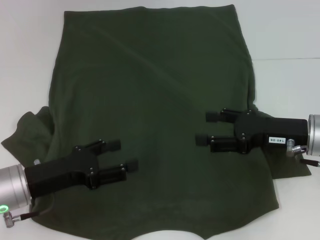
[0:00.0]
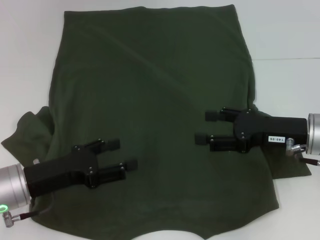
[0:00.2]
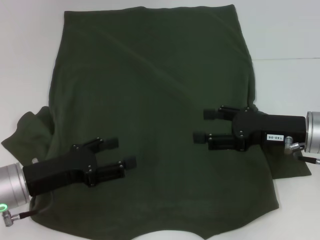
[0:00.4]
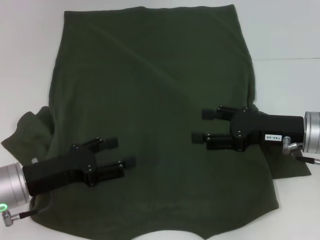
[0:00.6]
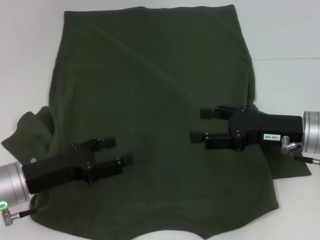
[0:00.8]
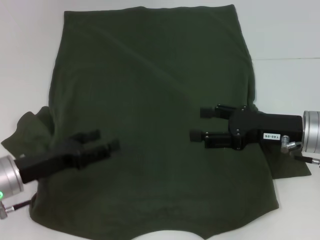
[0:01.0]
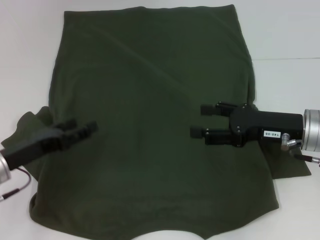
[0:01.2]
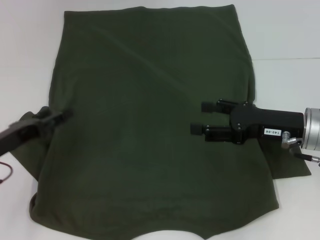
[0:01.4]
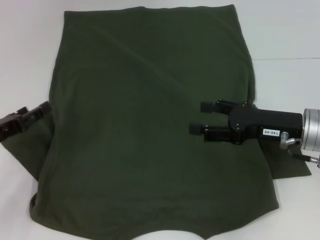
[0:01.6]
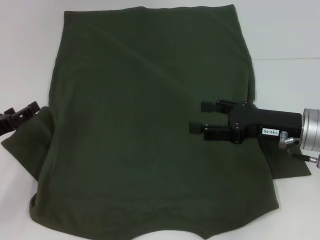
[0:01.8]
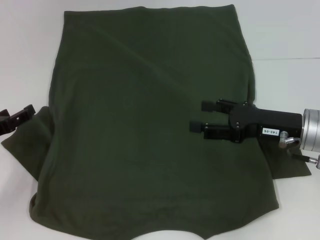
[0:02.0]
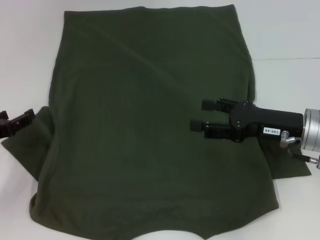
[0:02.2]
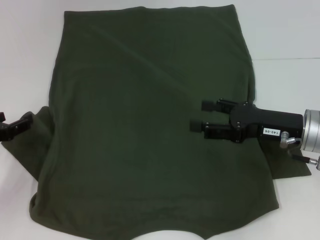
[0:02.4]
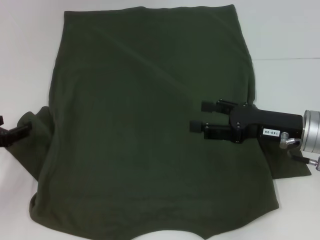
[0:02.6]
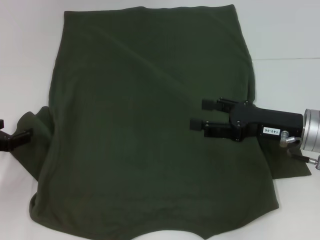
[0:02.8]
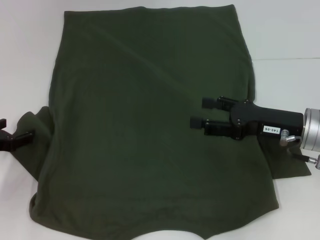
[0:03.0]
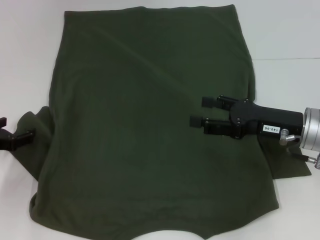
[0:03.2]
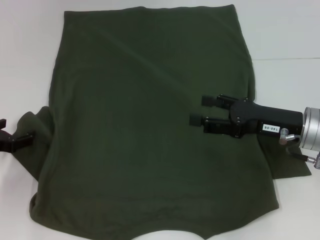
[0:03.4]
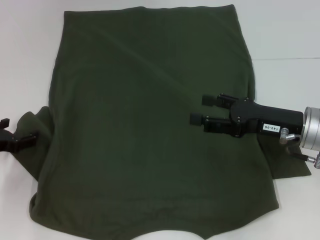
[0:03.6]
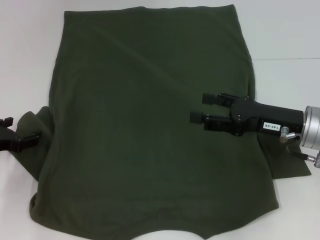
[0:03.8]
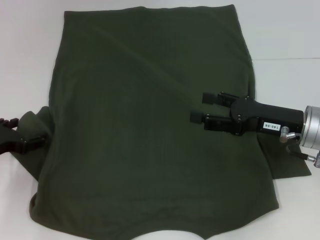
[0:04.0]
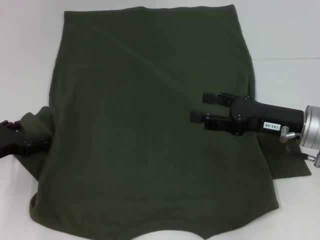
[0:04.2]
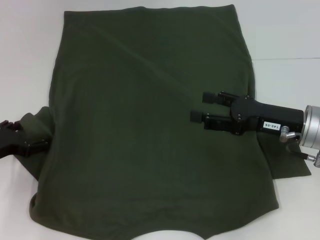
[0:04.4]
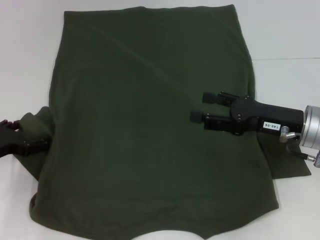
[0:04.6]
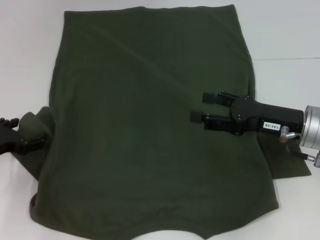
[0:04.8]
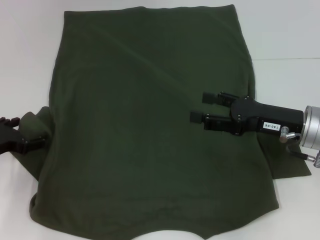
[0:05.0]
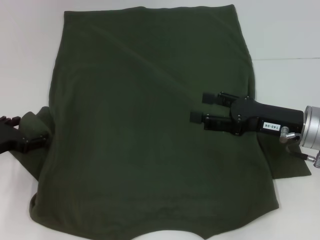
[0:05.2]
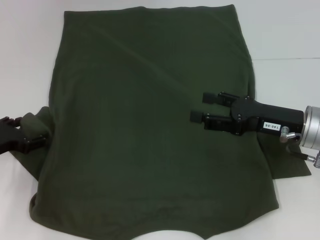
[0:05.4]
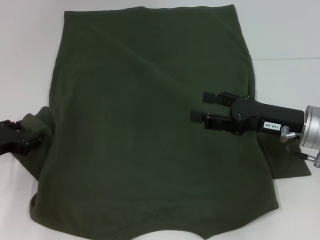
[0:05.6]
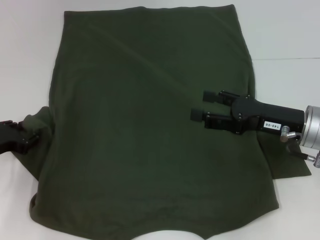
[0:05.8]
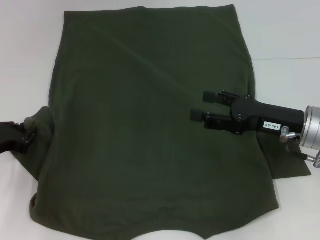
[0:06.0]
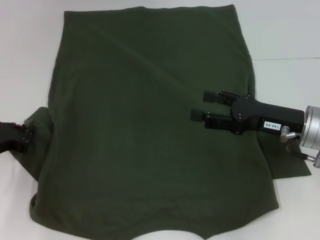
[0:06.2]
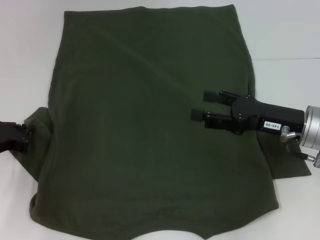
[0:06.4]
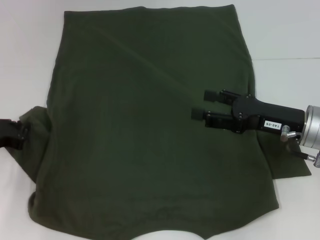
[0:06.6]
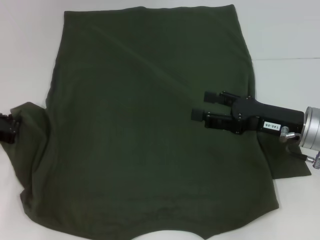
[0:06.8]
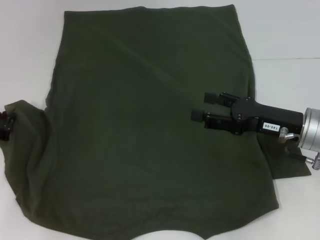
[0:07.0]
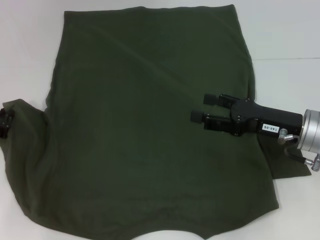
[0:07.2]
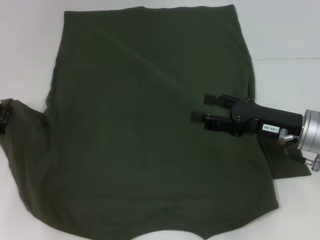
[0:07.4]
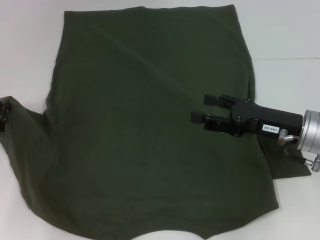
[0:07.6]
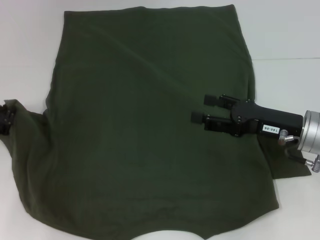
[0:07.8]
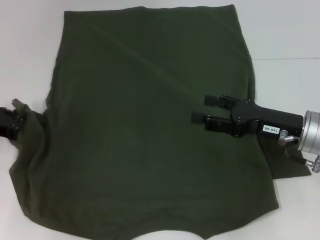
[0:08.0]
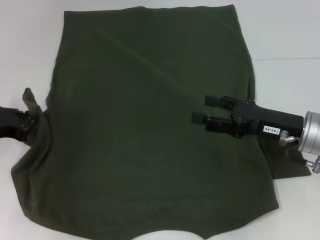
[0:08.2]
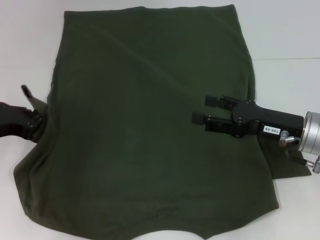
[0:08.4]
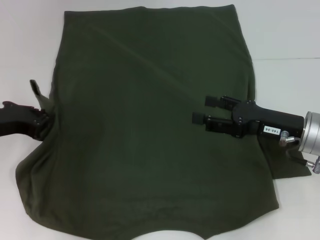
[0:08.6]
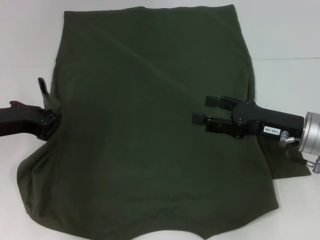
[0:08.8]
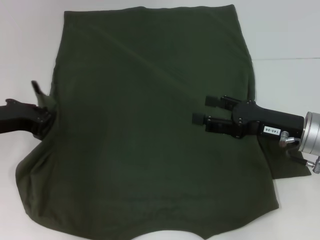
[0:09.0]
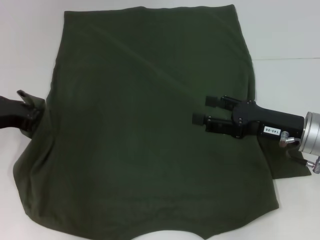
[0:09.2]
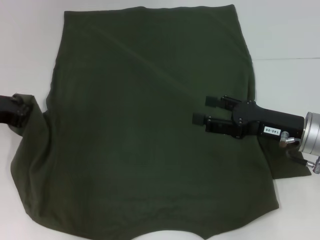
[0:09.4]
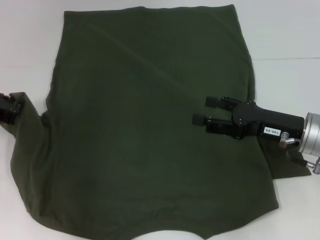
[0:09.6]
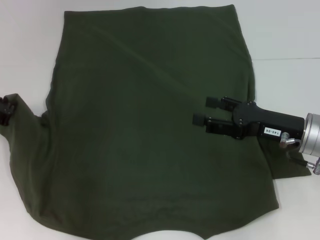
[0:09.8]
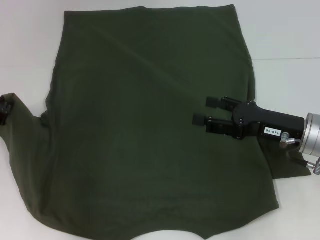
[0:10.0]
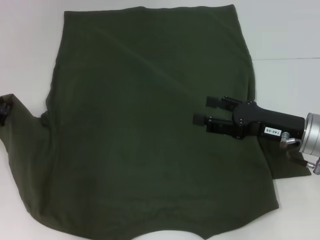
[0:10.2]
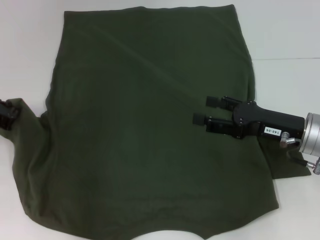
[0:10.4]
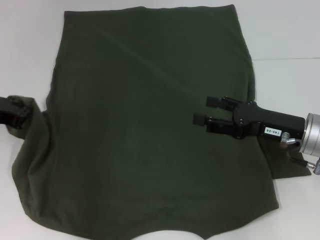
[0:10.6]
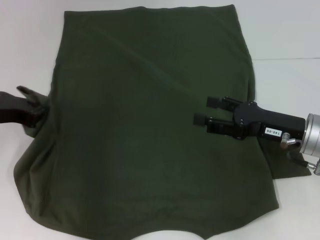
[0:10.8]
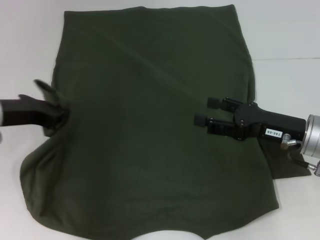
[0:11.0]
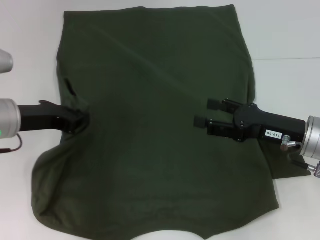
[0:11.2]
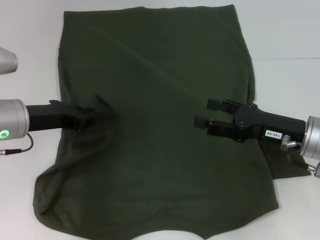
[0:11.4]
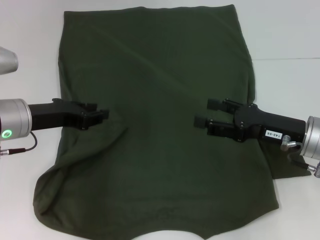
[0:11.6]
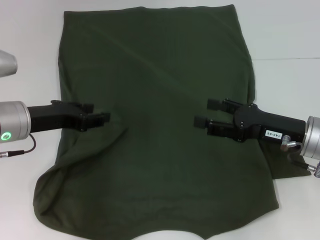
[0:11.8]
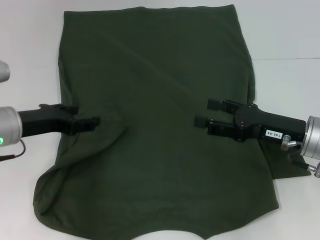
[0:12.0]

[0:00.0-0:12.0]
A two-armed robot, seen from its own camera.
Step, 0:00.0 to 0:12.0: Fold the bottom left sleeve with your left hand.
0:00.0 to 0:01.6: The left gripper travels to the left by roughly 10 cm.
0:03.0 to 0:04.4: The grippers make only small movements.
0:06.0 to 0:07.6: The left gripper closes its fingers.
0:07.6 to 0:09.0: The left gripper changes place by roughly 5 cm.
0:09.0 to 0:10.4: The grippers move only a little.
0:10.4 to 0:12.0: The left gripper heads to the right, covering roughly 5 cm, and opens.

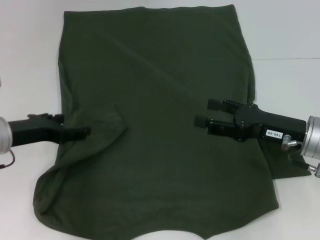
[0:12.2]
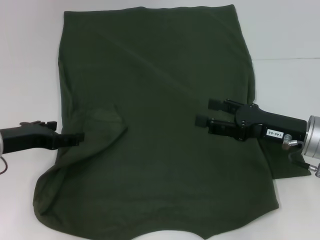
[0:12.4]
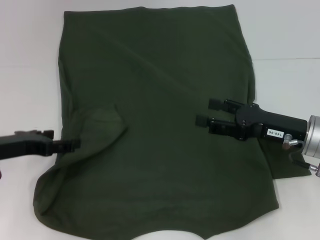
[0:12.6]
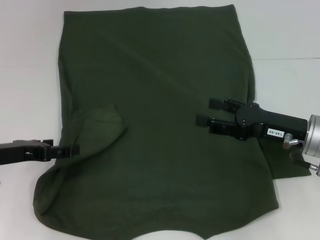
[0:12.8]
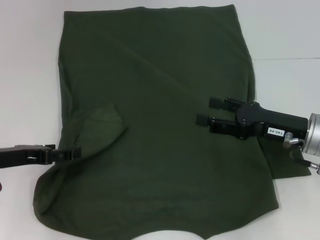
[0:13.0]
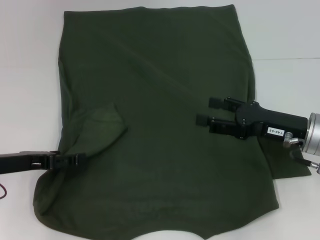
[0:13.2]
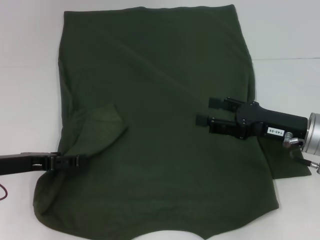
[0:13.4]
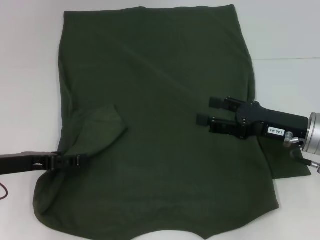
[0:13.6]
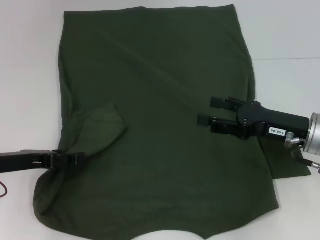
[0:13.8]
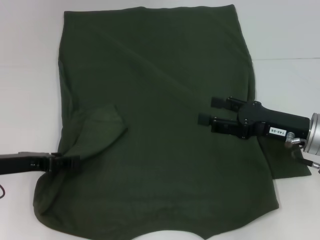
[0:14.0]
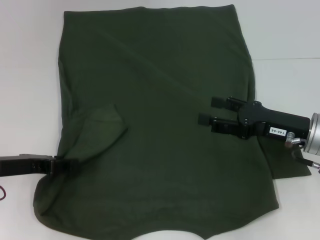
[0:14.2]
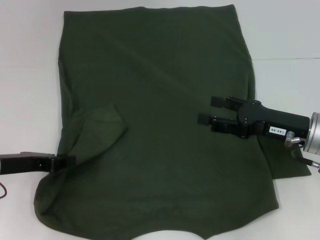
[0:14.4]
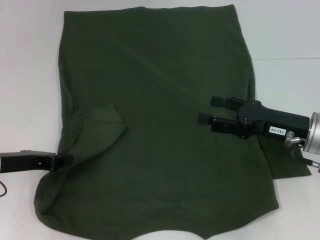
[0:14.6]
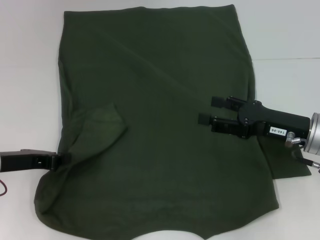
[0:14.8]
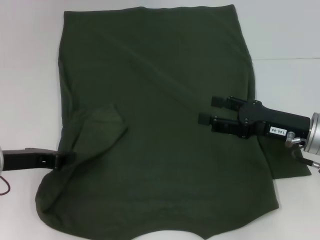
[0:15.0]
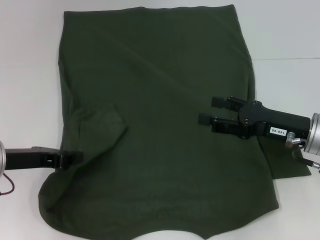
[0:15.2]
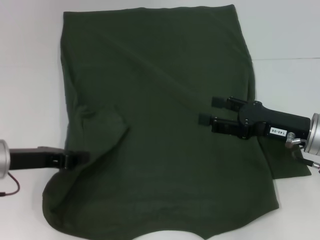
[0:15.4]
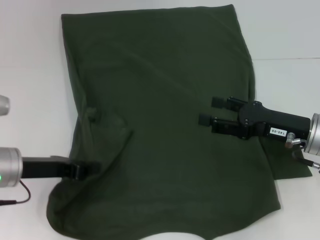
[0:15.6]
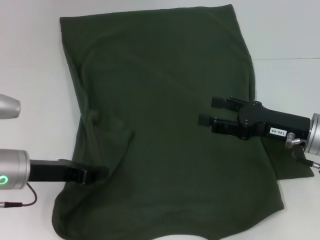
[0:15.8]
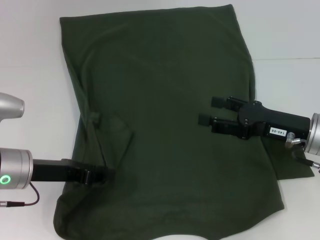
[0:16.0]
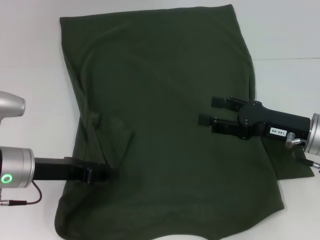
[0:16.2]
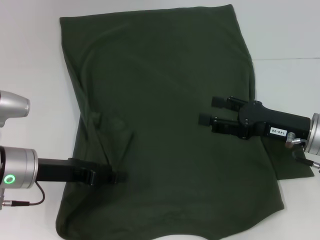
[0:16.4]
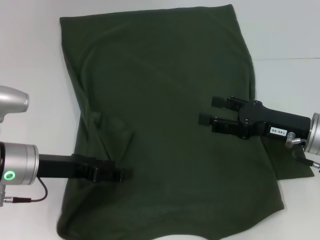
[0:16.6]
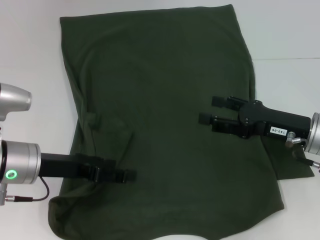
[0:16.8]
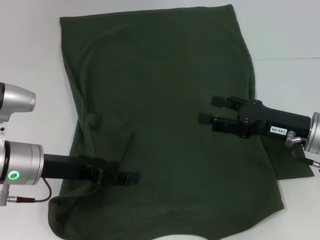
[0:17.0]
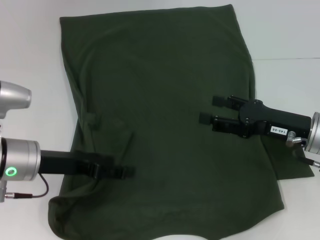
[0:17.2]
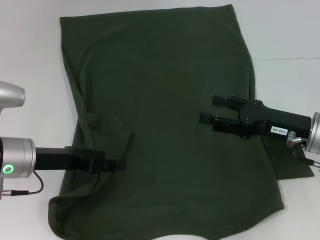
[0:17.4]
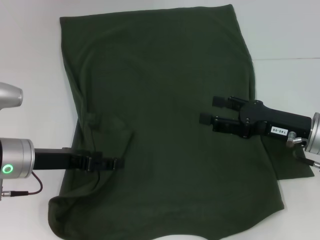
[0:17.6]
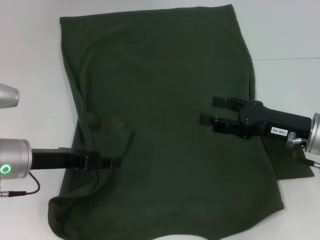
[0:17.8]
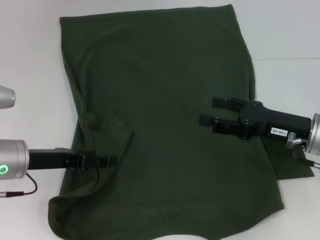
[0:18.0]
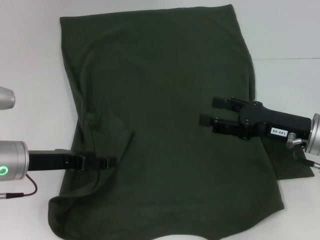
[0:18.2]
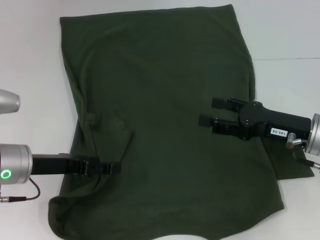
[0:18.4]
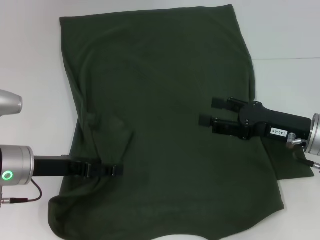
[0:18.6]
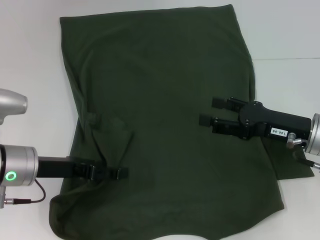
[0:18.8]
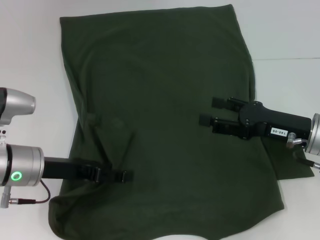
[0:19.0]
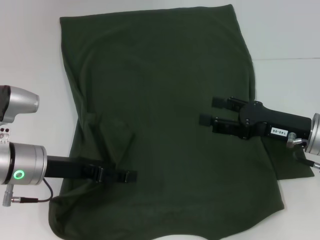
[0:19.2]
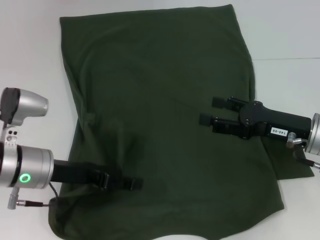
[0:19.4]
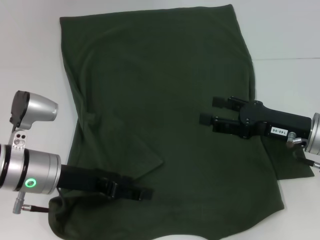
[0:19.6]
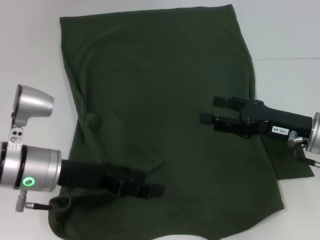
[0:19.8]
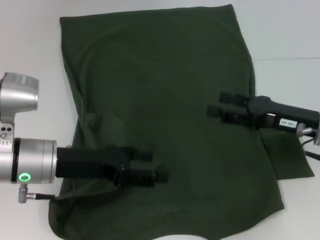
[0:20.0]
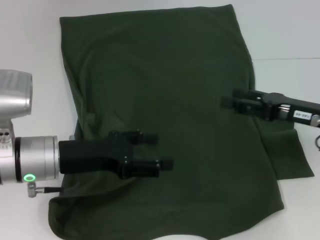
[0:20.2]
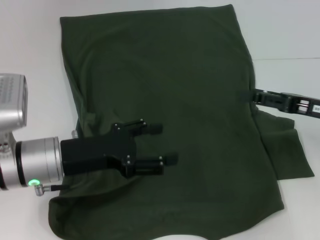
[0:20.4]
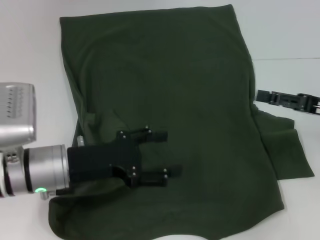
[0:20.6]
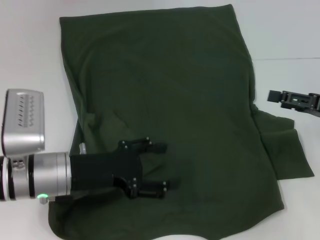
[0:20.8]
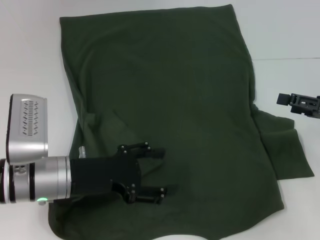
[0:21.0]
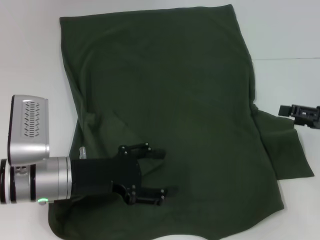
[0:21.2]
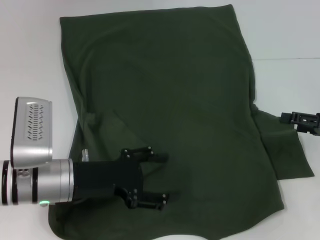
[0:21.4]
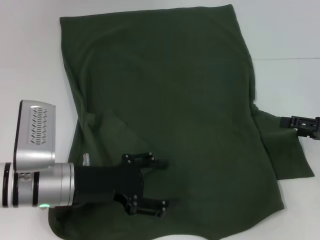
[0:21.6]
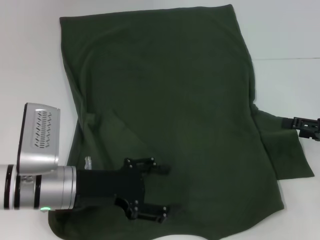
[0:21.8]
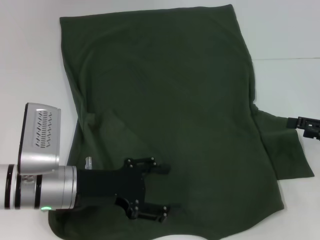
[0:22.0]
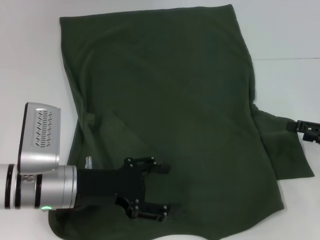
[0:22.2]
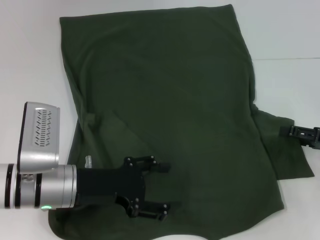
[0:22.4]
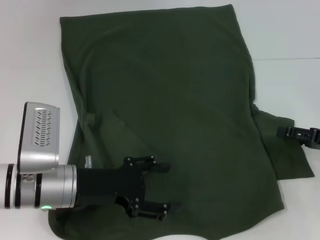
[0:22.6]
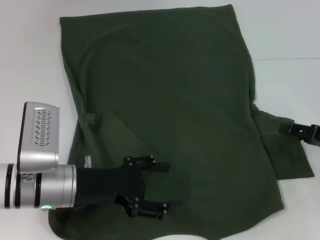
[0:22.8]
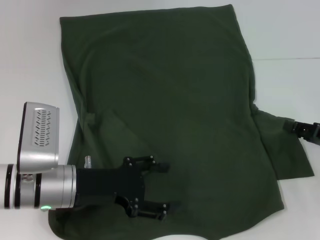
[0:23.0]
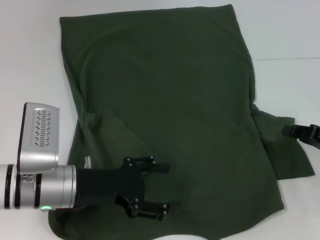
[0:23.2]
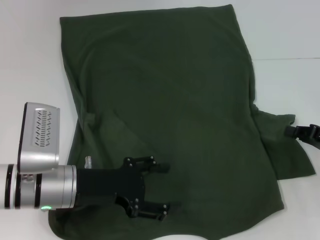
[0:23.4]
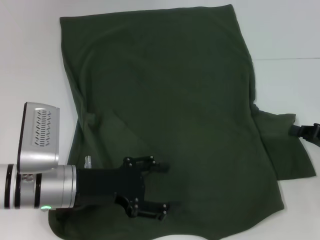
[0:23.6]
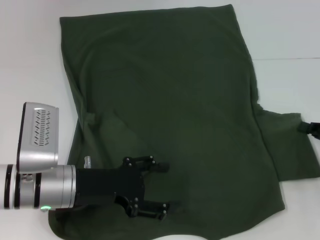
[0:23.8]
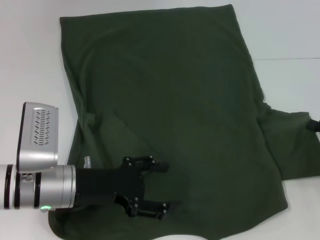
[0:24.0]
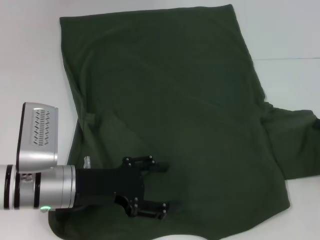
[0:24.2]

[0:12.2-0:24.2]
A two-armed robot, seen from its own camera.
0:13.8 to 0:15.2: The left gripper closes its fingers.
0:15.2 to 0:16.6: The left gripper opens.
0:16.6 to 0:18.2: There are only small adjustments of the grippers.
0:18.2 to 0:19.8: The left gripper is displaced to the right by some 5 cm.
0:19.8 to 0:21.2: The right gripper moves to the right, roughly 10 cm.
0:21.2 to 0:22.6: The grippers move only a little.
0:22.6 to 0:24.2: The right gripper closes up.
